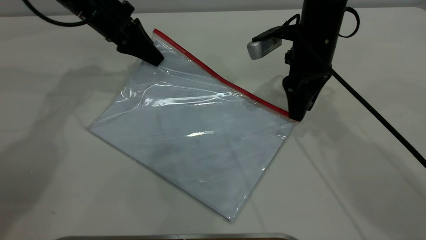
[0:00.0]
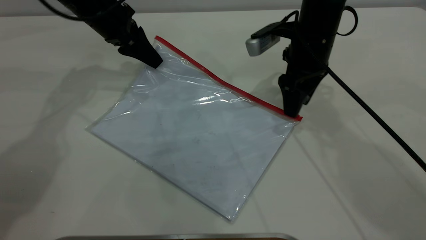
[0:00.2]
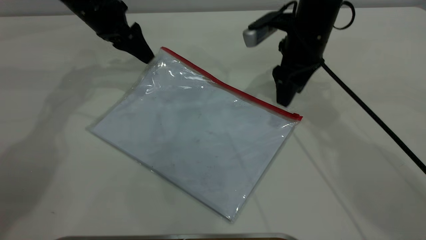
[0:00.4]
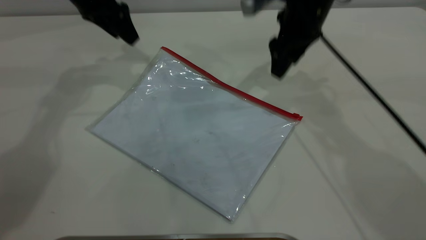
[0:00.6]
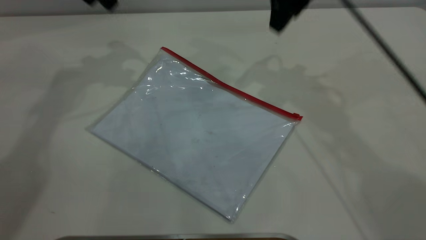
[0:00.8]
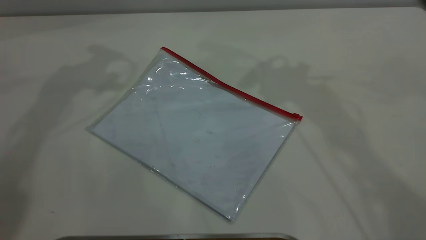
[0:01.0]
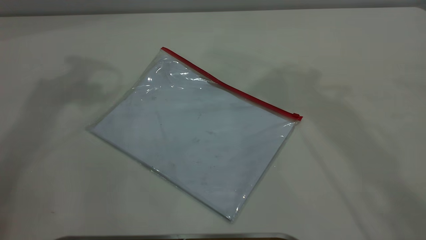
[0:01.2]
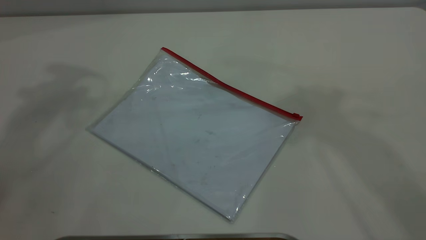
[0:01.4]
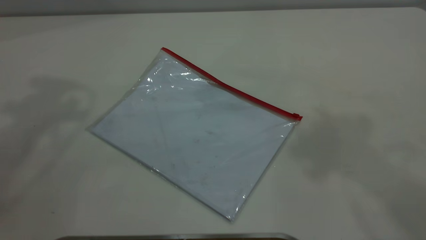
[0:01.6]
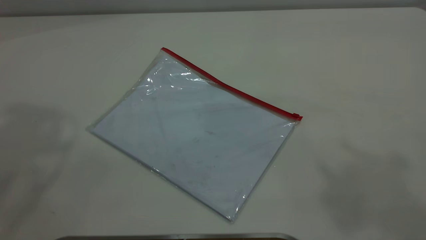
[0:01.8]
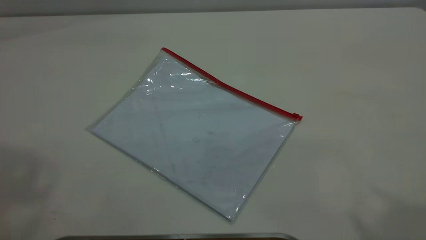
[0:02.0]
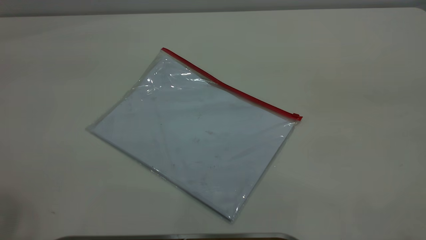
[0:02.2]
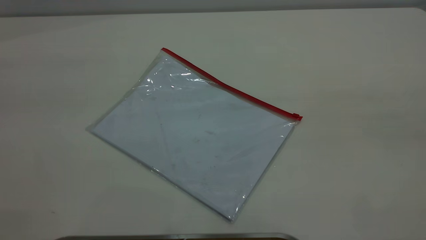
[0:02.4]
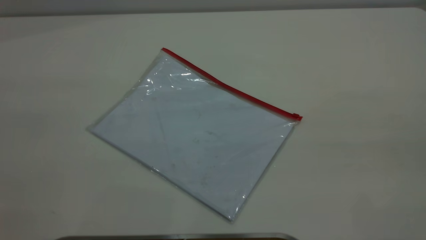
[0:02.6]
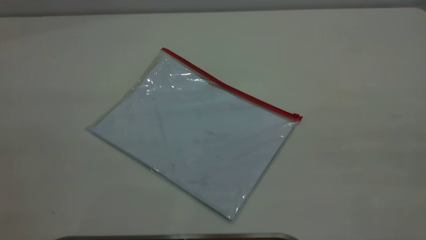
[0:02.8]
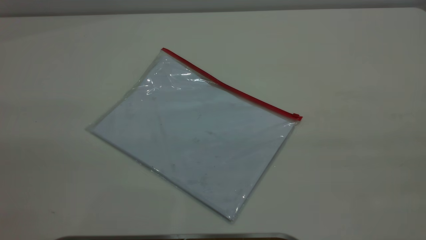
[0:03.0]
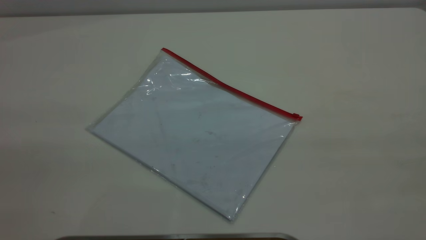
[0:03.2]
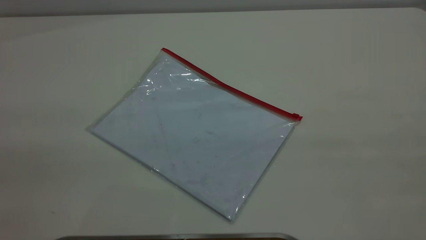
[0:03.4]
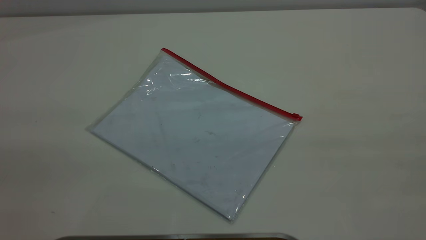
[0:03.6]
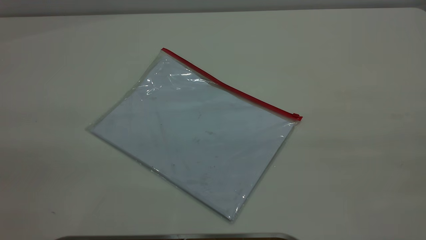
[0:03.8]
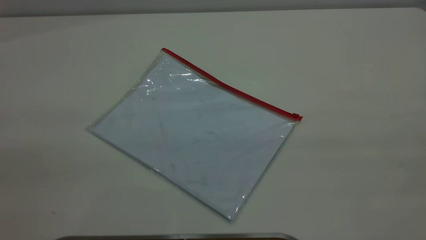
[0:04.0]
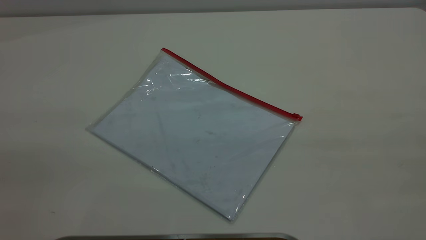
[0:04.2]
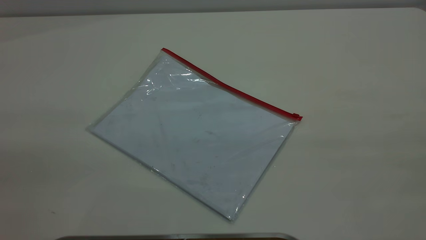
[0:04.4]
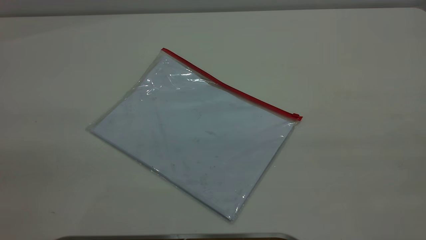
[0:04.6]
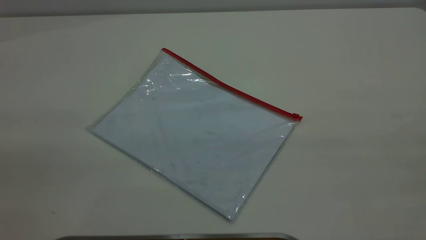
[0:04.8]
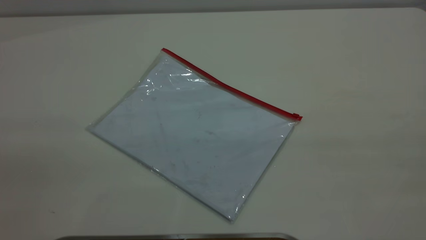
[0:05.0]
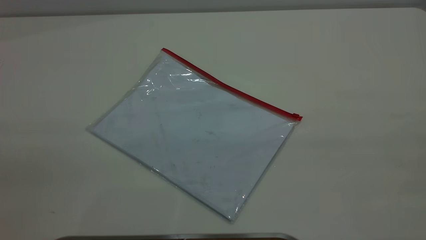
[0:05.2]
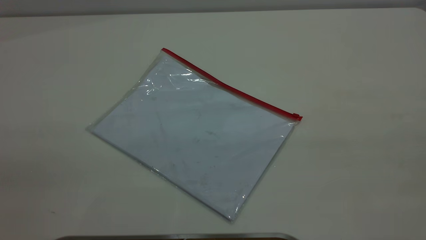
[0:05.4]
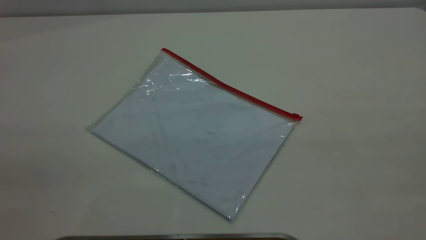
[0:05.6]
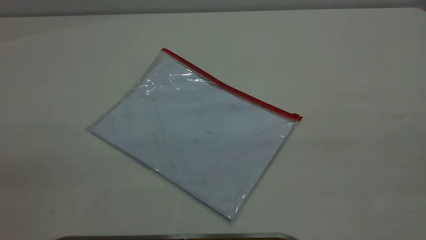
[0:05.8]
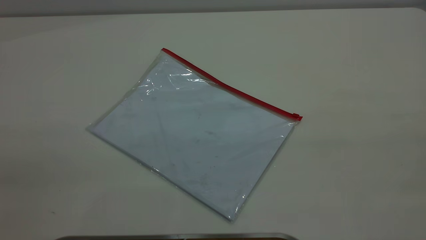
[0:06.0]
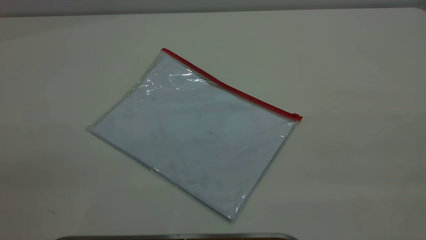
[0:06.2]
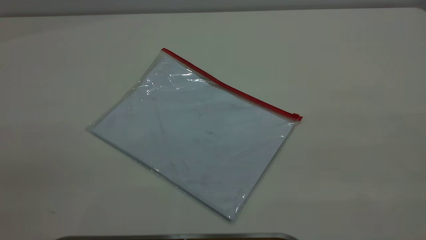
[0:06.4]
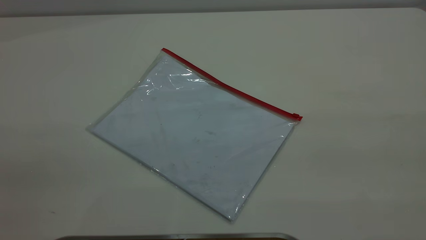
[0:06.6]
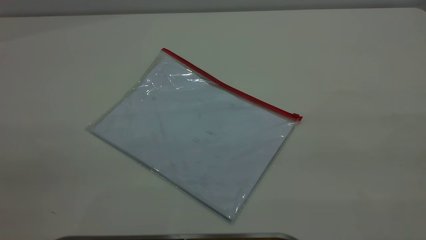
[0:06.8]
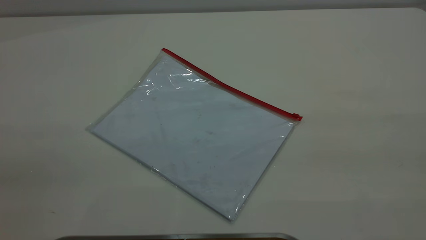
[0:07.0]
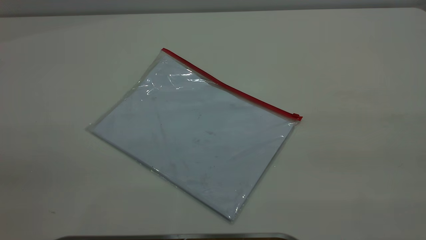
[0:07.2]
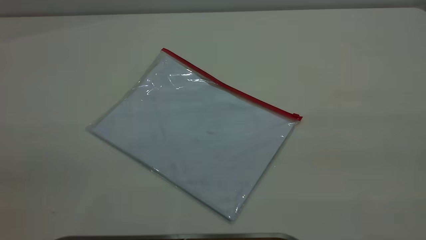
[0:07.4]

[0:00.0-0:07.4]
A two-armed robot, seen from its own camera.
Step, 0:00.4 to 0:00.6: Place the transparent plastic bag.
0:00.0 to 0:01.4: The grippers both shift upward by approximately 35 cm. The left gripper opens its fingers.
